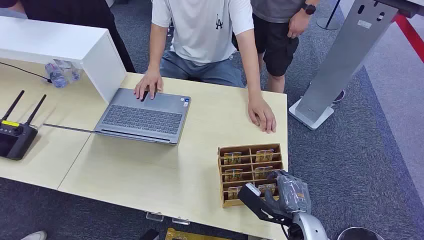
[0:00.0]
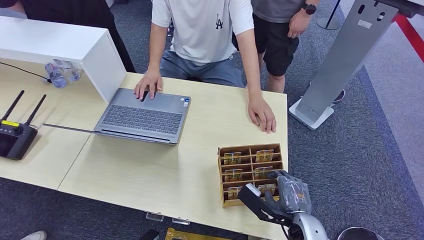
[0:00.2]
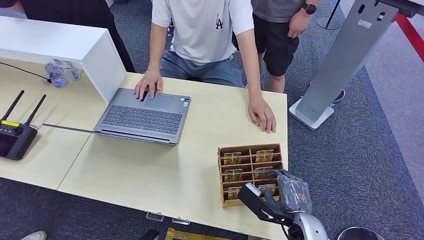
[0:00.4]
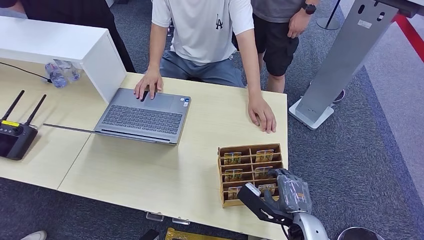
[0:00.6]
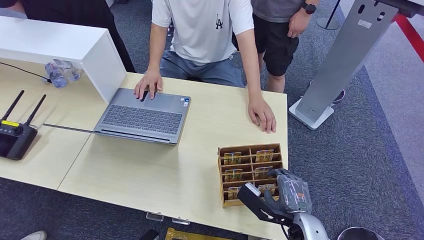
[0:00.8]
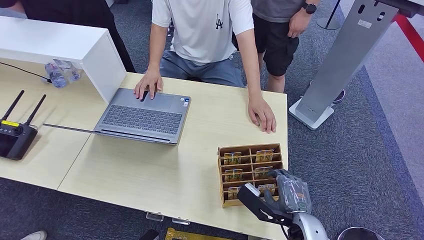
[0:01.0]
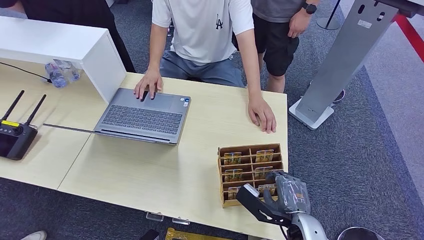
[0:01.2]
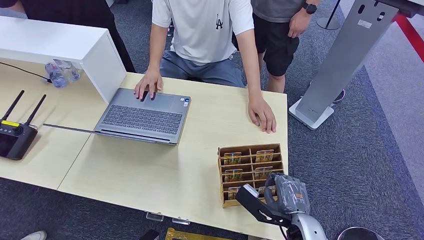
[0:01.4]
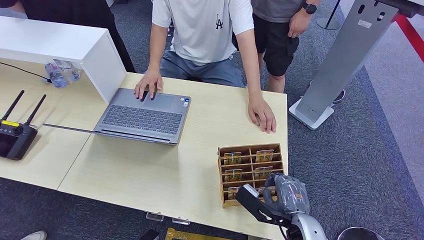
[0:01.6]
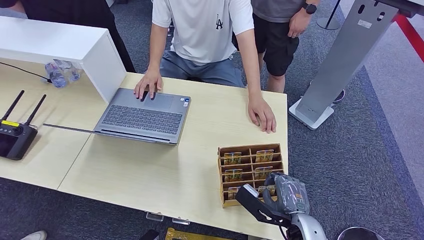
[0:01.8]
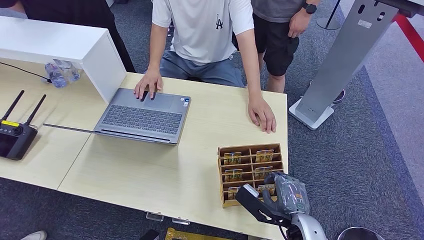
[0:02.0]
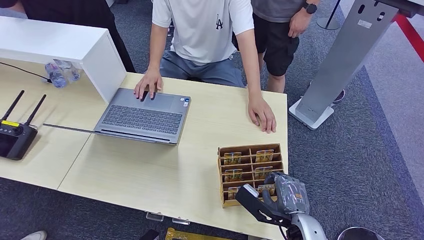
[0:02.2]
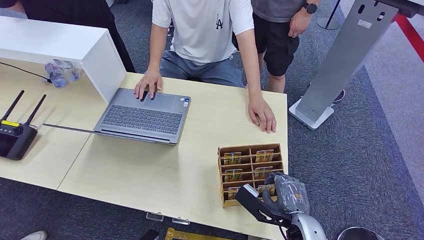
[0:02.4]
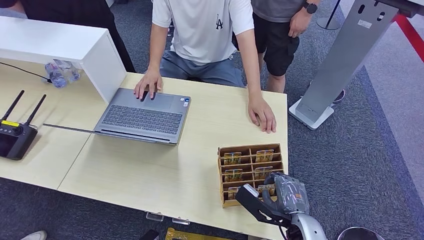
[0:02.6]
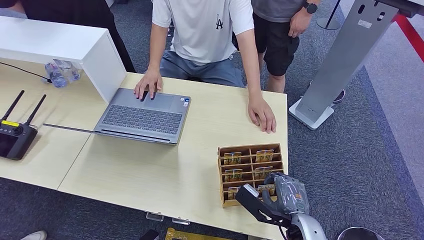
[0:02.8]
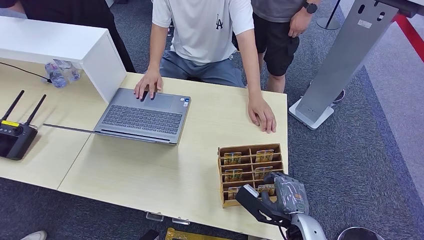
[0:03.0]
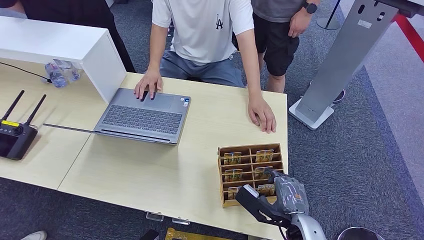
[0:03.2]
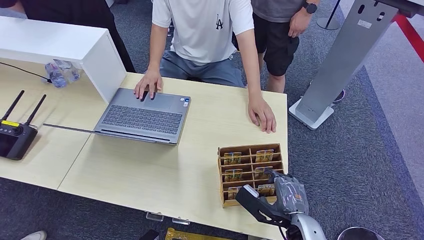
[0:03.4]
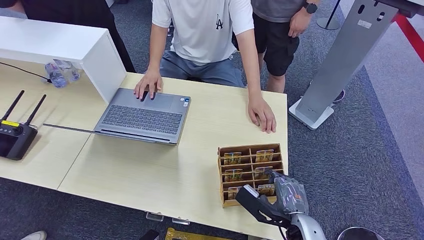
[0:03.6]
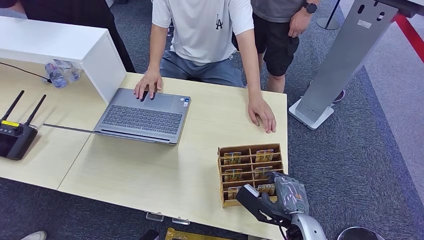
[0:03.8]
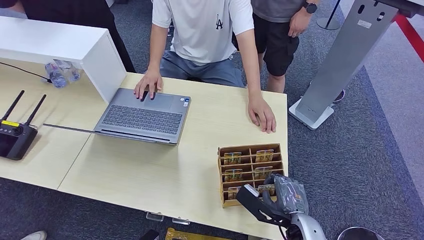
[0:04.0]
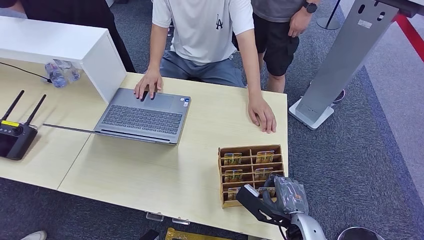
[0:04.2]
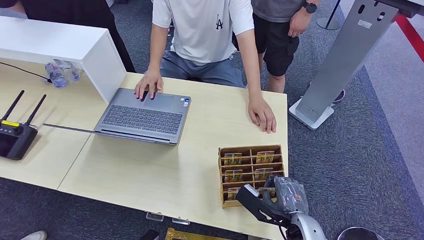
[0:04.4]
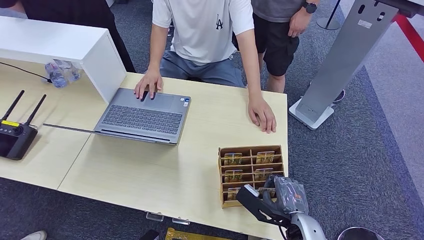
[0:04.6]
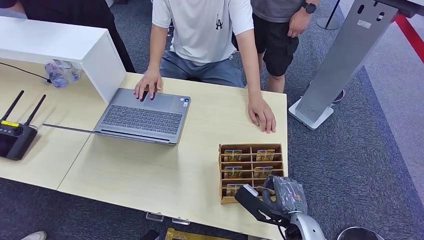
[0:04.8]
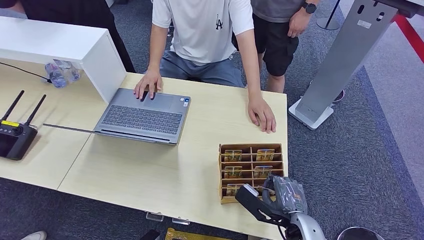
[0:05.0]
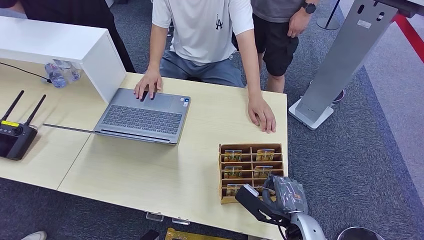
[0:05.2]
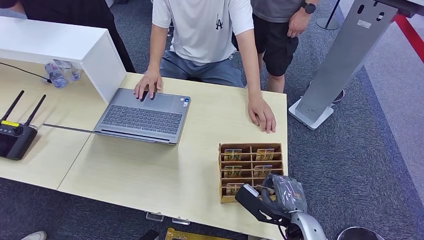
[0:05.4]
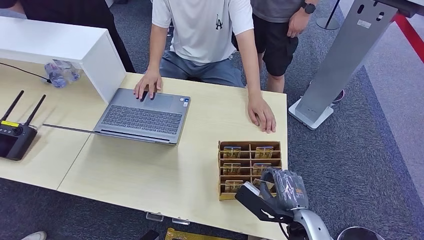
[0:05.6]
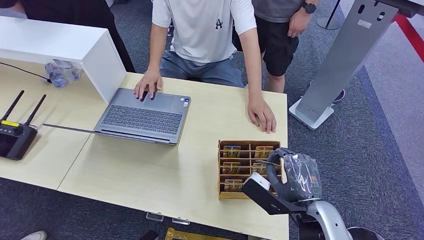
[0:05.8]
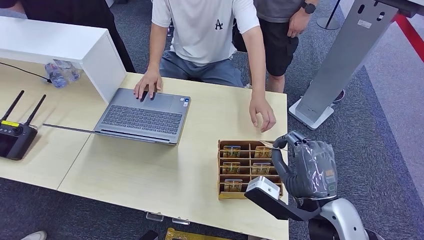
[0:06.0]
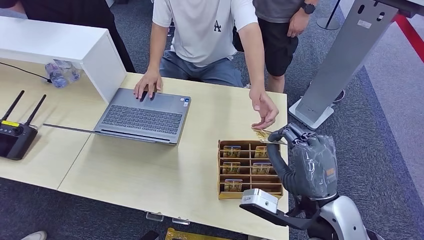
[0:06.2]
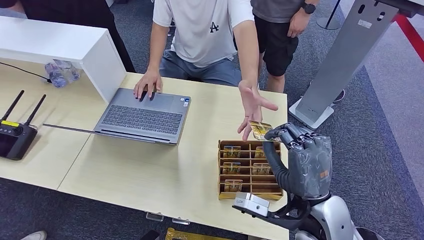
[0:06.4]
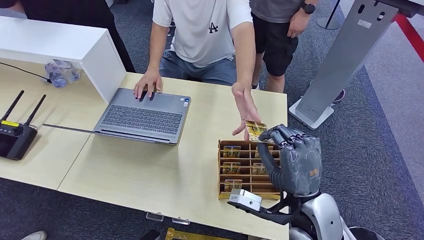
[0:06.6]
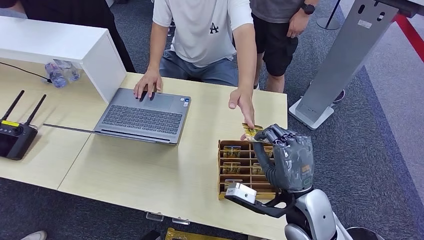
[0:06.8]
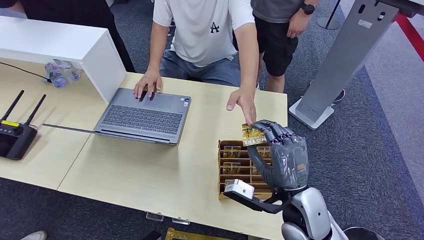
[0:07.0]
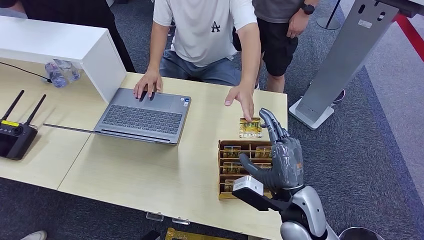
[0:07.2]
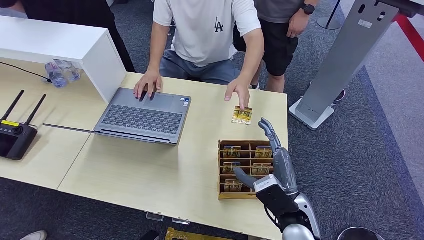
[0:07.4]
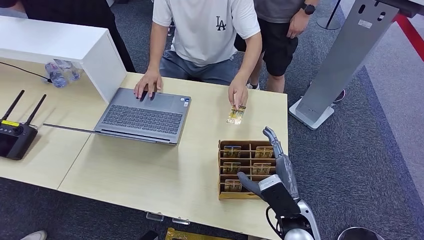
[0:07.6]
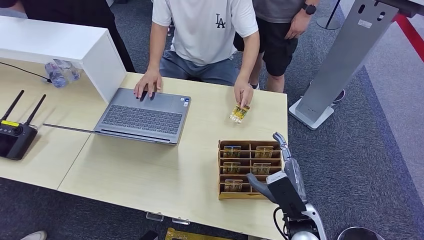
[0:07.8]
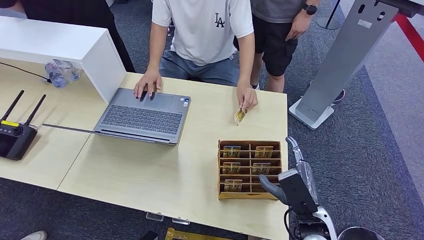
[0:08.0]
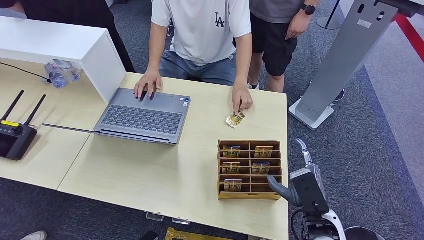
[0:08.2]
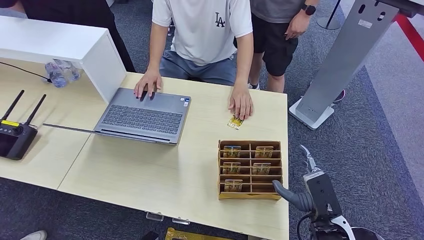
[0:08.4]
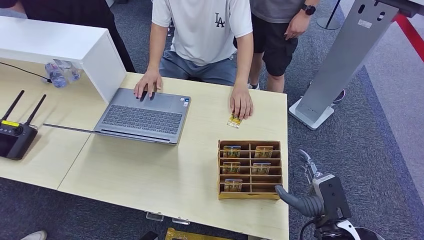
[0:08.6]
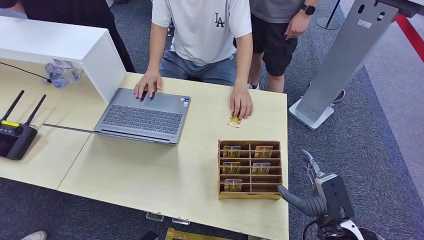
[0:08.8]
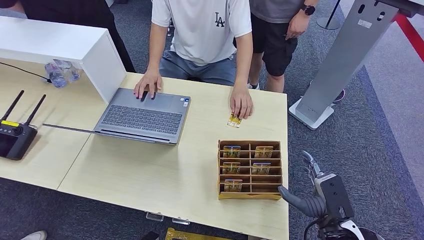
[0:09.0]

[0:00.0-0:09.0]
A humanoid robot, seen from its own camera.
Task of the whole recording: Pick up the card and hand it over to the target person.
Step, 0:00.0 to 0:06.2: Pick up the key card from the card box.
Step, 0:06.4 to 0:09.0: Hand the key card to the target.
0:01.6 to 0:04.4: Both hands stay put.
0:04.4 to 0:06.0: The right hand travels upward by some 15 cm.
0:06.0 to 0:07.6: The right hand is displaced downward by approximately 15 cm.
0:07.6 to 0:09.0: The right hand shifts some 5 cm to the right.
